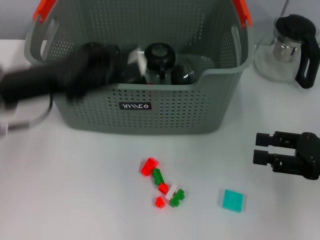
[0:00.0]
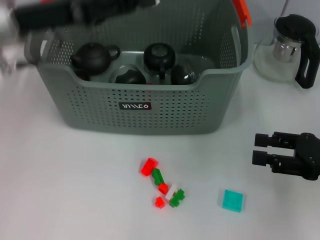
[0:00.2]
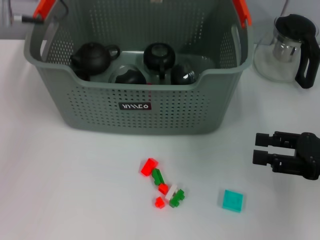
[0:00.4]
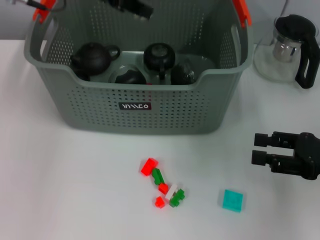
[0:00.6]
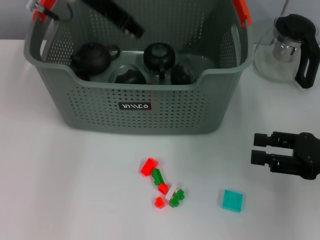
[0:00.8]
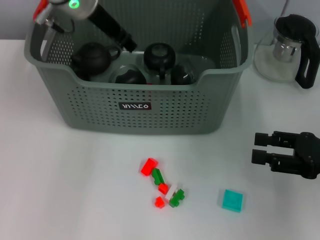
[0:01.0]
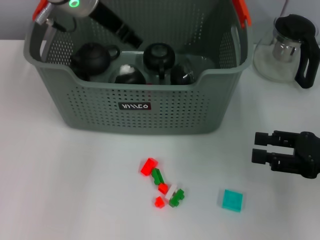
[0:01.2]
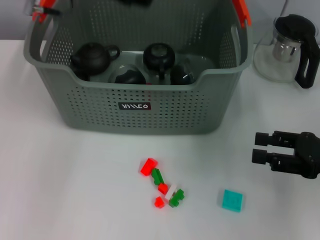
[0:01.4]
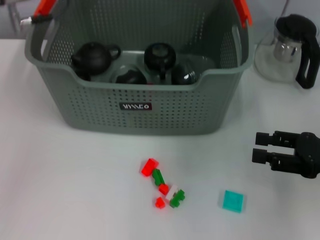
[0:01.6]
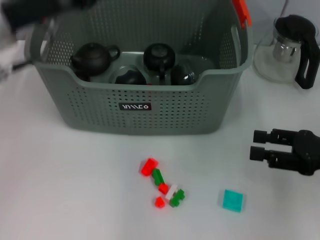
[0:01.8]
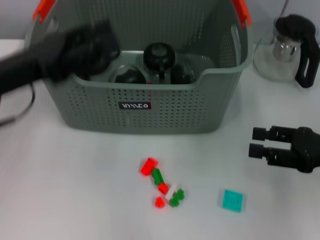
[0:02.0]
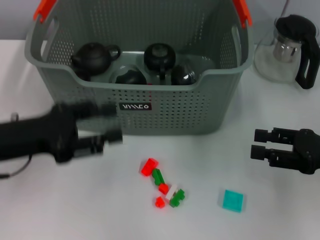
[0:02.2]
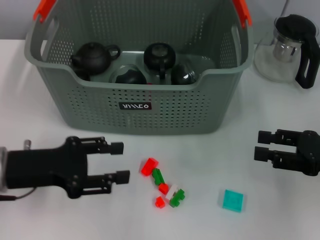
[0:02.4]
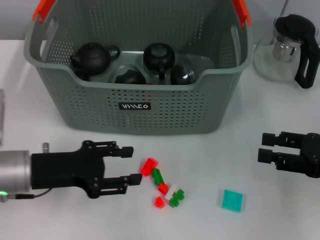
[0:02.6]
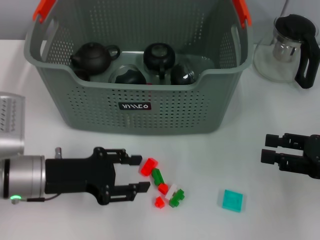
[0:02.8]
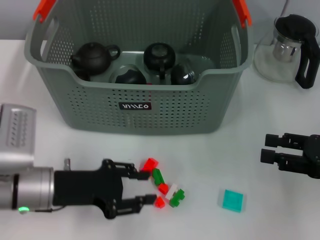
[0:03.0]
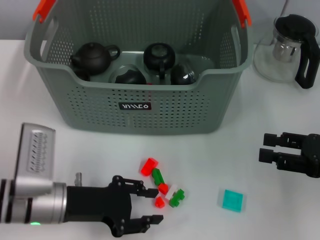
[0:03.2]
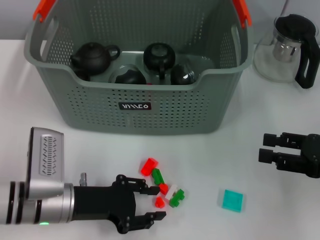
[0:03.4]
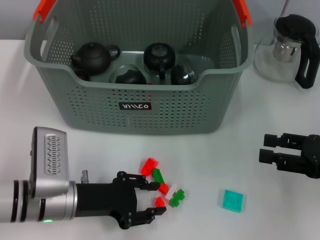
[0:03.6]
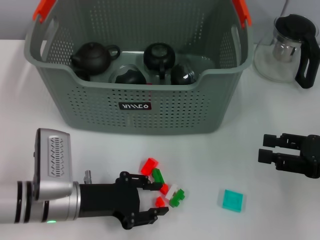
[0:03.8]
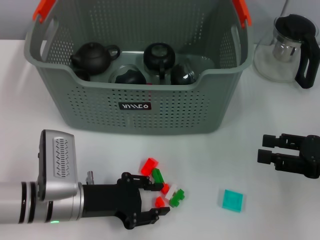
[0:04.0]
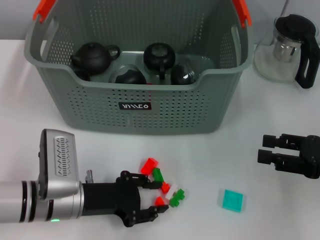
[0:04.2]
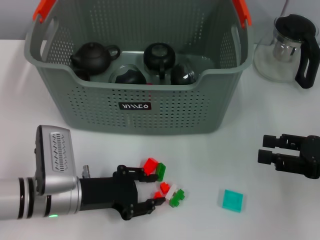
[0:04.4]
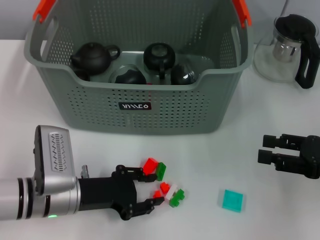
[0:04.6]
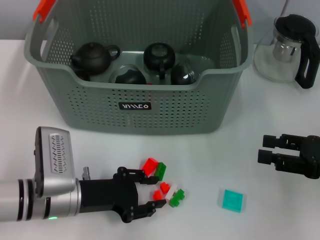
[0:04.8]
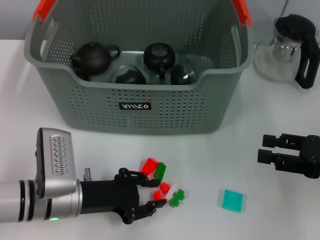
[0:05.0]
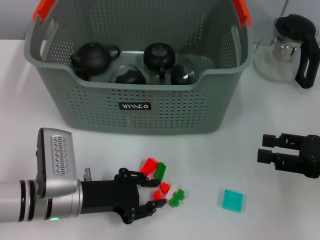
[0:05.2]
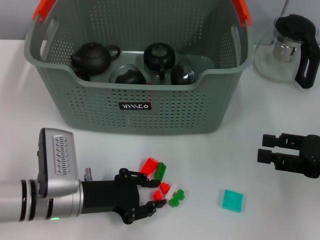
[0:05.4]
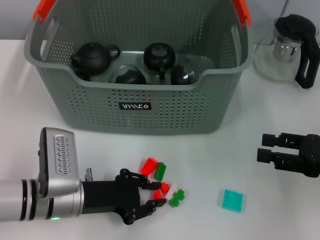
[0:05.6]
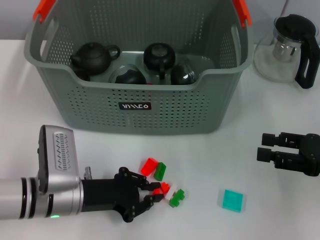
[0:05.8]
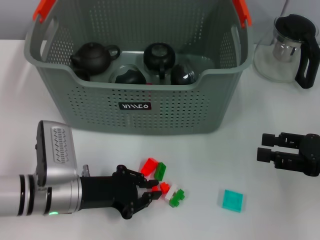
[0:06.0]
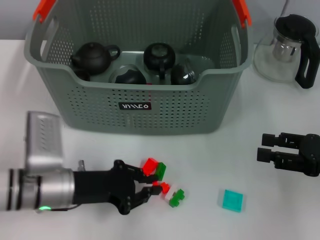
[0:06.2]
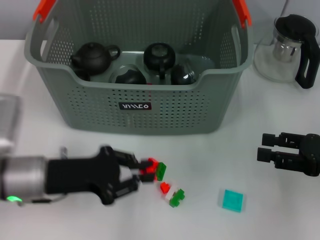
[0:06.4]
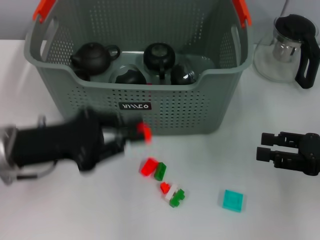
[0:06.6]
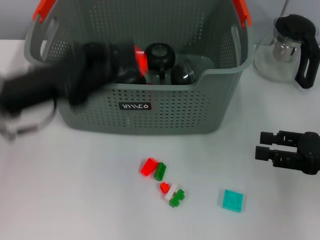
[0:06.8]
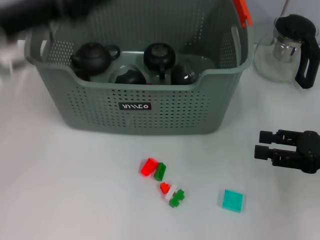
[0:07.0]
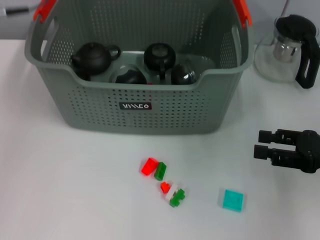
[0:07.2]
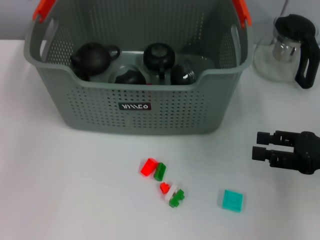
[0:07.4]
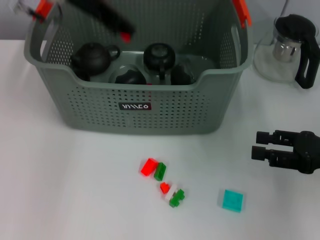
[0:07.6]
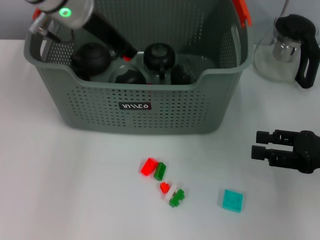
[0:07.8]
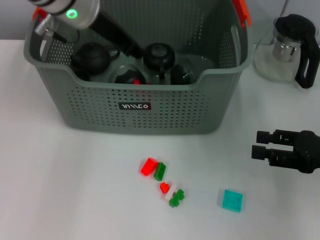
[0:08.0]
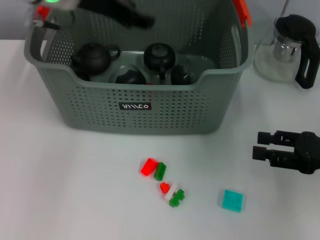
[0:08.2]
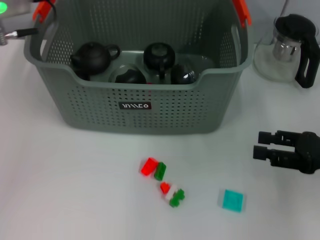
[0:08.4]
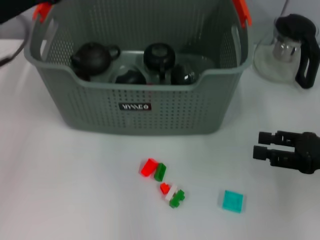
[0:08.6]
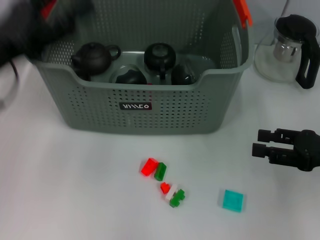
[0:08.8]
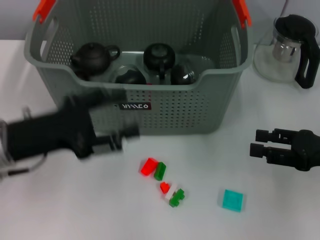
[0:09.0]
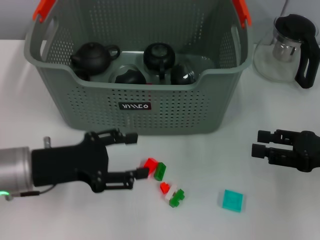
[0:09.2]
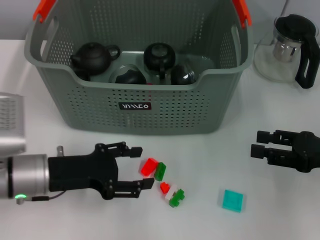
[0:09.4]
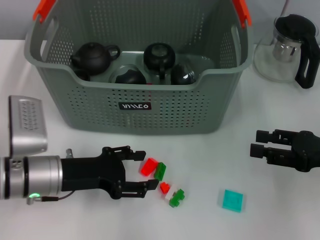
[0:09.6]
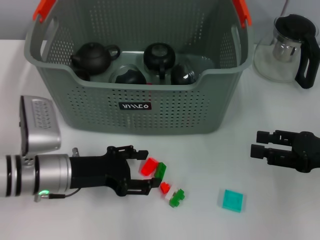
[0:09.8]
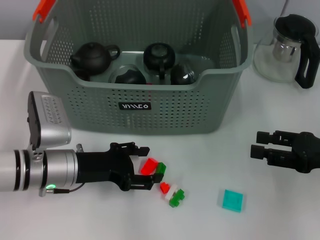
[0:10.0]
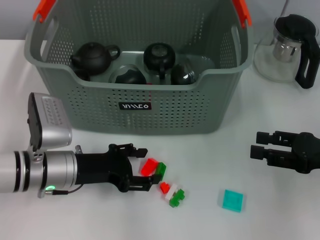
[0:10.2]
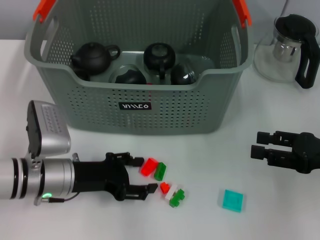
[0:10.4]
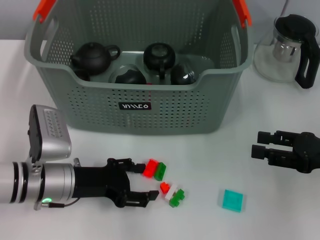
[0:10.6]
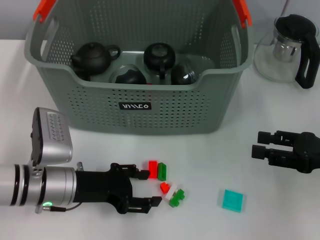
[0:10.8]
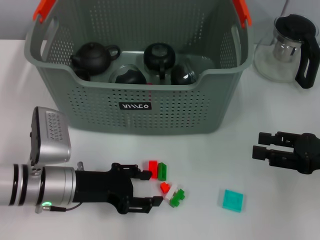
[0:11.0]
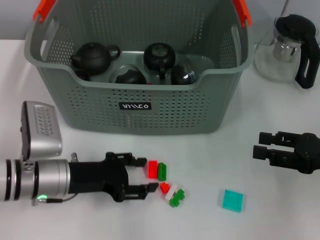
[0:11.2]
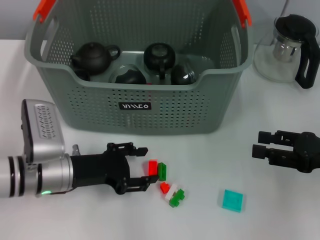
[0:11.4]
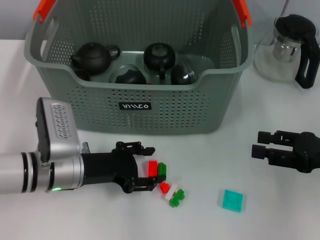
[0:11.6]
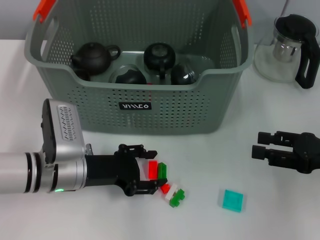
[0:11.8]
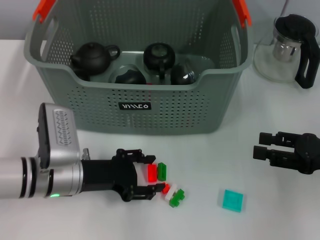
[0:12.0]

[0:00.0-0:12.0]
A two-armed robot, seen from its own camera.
Task of the whole recording: pick up the teacup on the table and place it into the storage bin, pick up the block on the table and place it into the storage bin.
Step, 0:01.2 to 0:05.6: Grasp the orange block with left gripper.
Step, 0:06.0 to 0:08.0: Place the orange block in the storage box with left gripper.
0:00.0 to 0:01.6: The left gripper moves upward and forward, roughly 10 cm.
0:01.6 to 0:03.0: The left gripper travels downward and backward by some 25 cm.
0:03.0 to 0:04.4: The grippers make only small movements.
0:04.4 to 0:06.0: The two grippers keep their place.
0:06.0 to 0:07.6: The left gripper shifts some 30 cm upward and forward.
0:07.6 to 0:09.0: The left gripper heads backward, downward and to the left, covering approximately 25 cm, and opens its fingers.
0:09.0 to 0:10.4: The left gripper moves downward, approximately 10 cm.
0:10.4 to 0:12.0: The grippers stay close to where they were, moving slightly.

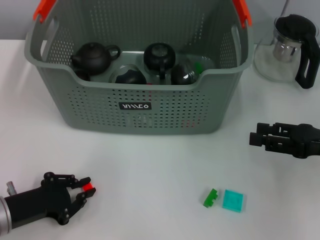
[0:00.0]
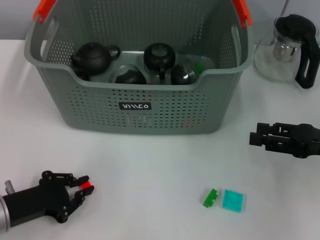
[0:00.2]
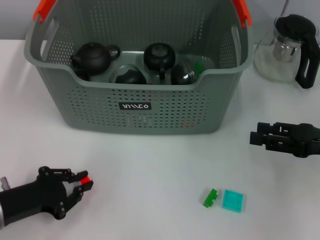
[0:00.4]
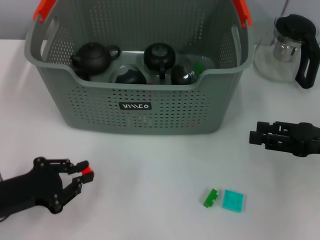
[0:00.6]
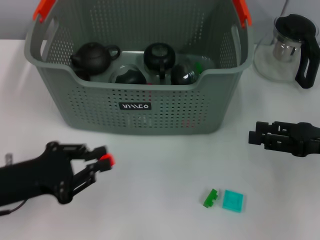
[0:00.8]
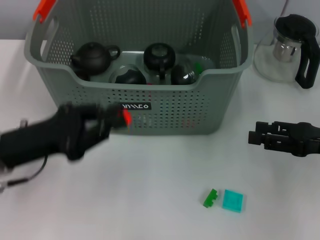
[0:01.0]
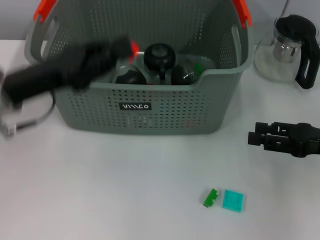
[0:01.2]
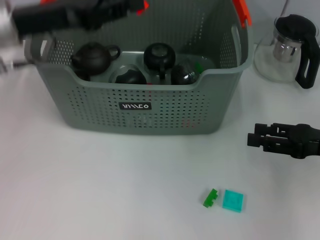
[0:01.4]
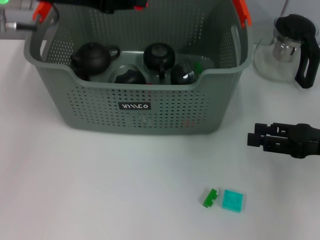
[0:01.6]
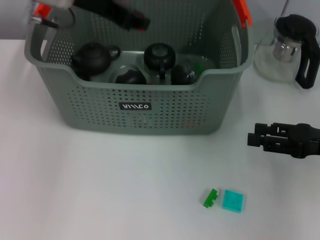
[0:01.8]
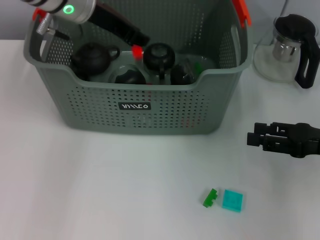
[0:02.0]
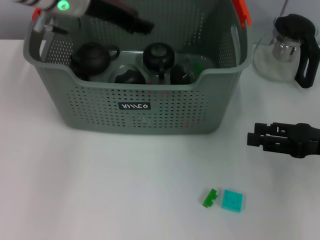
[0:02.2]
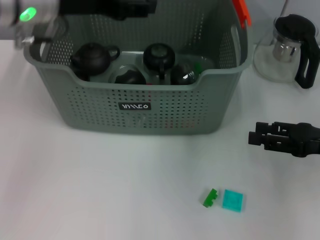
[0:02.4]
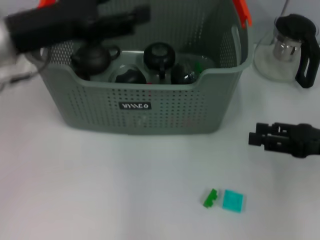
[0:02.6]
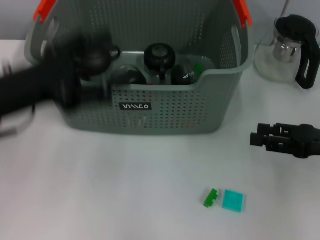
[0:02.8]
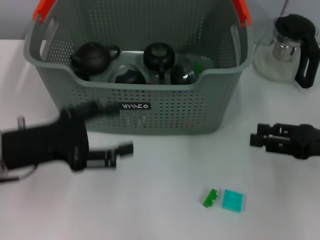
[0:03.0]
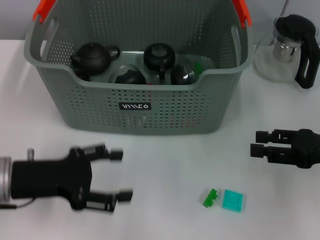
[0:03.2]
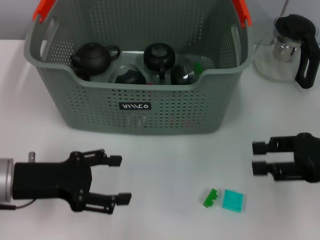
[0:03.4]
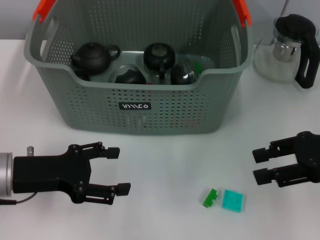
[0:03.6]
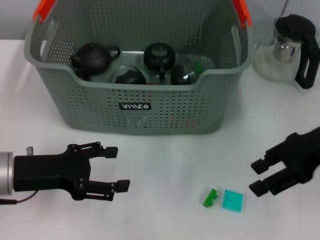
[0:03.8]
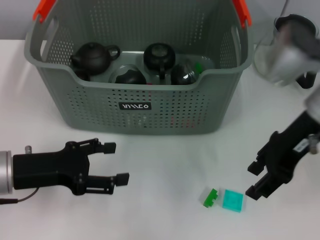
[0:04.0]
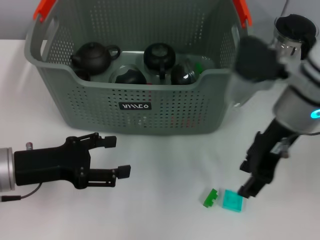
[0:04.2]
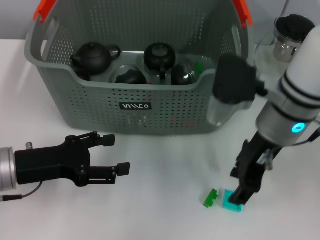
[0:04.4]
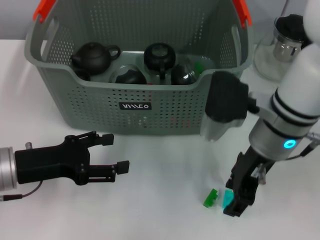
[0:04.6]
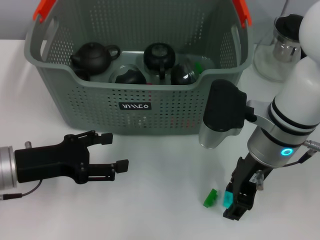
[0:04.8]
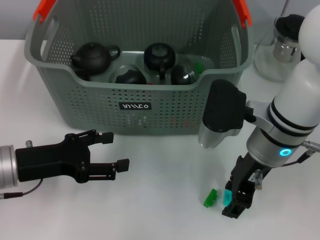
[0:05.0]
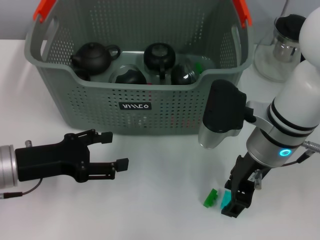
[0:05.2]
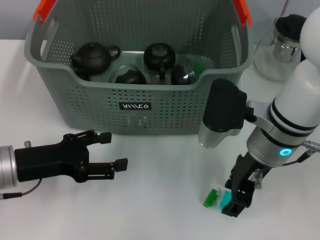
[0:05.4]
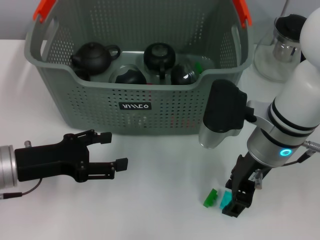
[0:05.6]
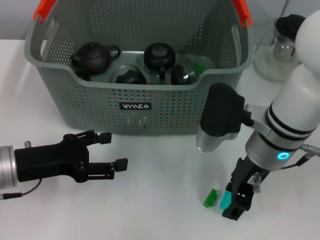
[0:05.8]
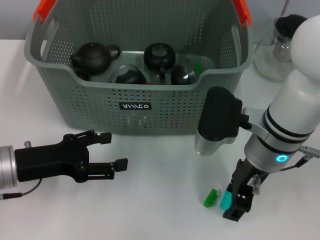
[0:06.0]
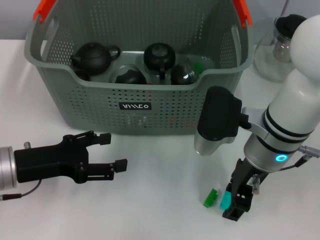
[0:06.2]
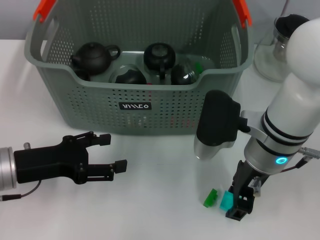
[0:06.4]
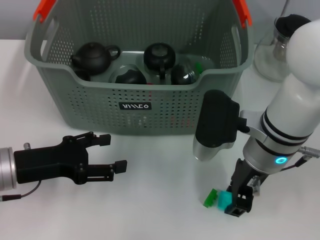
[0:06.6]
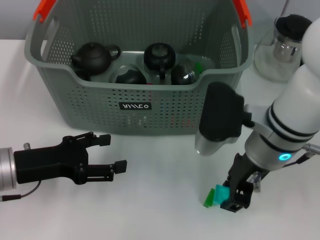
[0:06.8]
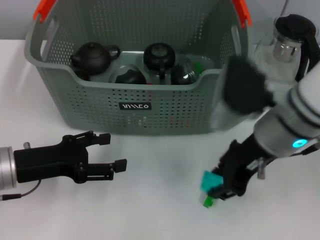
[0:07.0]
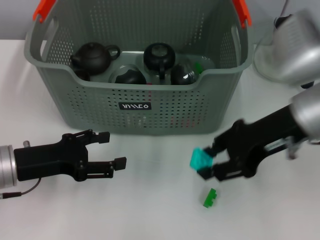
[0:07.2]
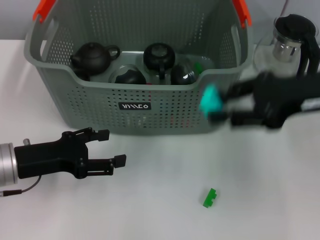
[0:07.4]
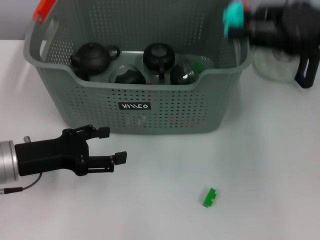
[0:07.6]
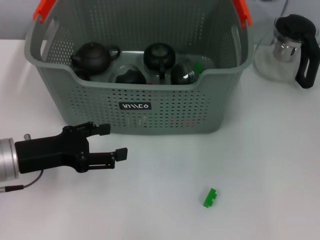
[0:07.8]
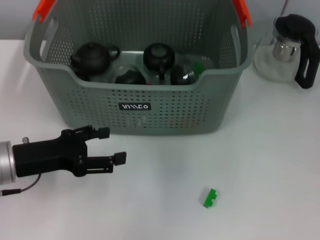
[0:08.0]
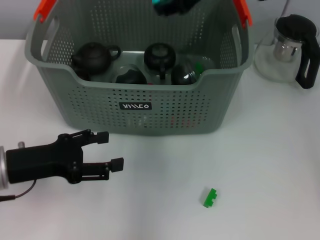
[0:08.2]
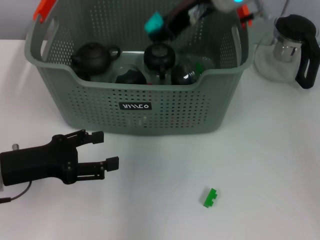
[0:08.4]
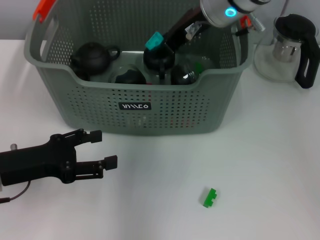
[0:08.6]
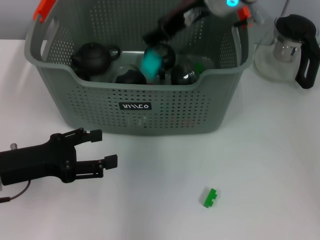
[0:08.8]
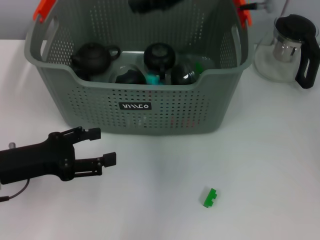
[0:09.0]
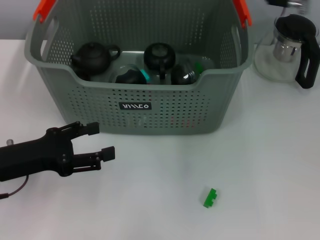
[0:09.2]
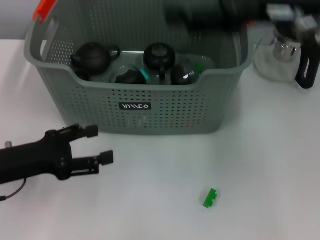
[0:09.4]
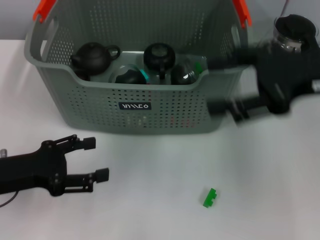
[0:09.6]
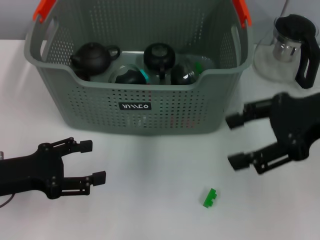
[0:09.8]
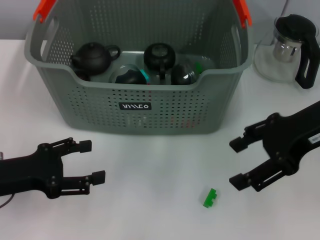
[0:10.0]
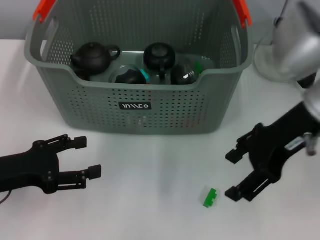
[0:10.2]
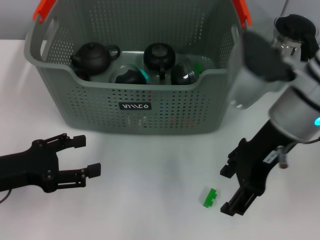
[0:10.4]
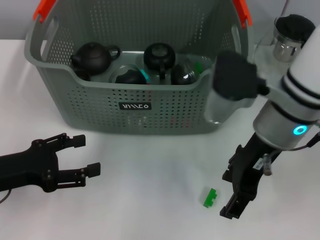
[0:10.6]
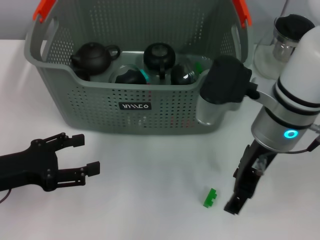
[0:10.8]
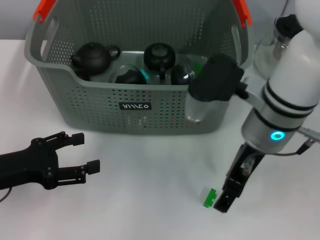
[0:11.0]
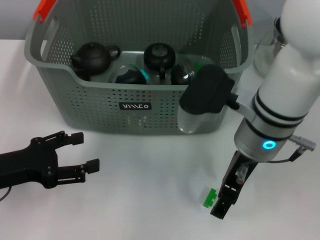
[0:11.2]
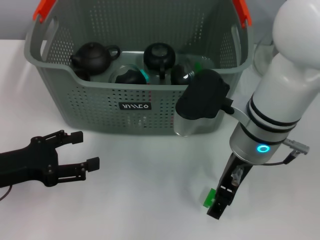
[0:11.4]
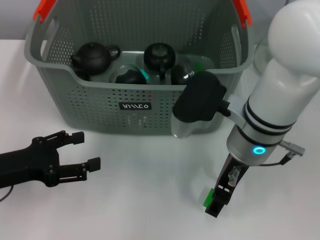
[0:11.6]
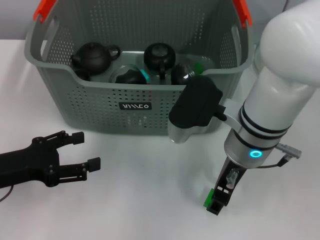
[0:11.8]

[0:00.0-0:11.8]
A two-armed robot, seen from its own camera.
Task of the whole recording: pick up the teacup on the table and place it into the storage bin, pick up the block on the table and place it into the storage bin.
Step, 0:00.4 to 0:02.0: Place the orange block in the storage box with left gripper.
Step, 0:02.2 to 0:06.4: Grasp the light blue block with right gripper.
Step, 0:06.6 to 0:08.8: Place the light blue block in the storage box with right gripper.
0:00.0 to 0:01.4: The left gripper goes roughly 25 cm upward and forward.
0:01.4 to 0:03.0: The left gripper heads backward and downward, covering about 15 cm, and opens up.
0:03.0 to 0:04.4: The right gripper travels to the left by some 20 cm.
0:04.4 to 0:06.0: The grippers stay close to where they were, moving slightly.
0:06.0 to 0:07.4: The right gripper travels to the right and upward by about 15 cm.
0:07.4 to 0:08.8: The right gripper heads to the left and forward, covering roughly 20 cm.
0:08.8 to 0:10.4: The right gripper goes roughly 15 cm backward, to the right and downward, and opens.
0:10.4 to 0:11.8: The right gripper is displaced downward and to the left by approximately 10 cm.
